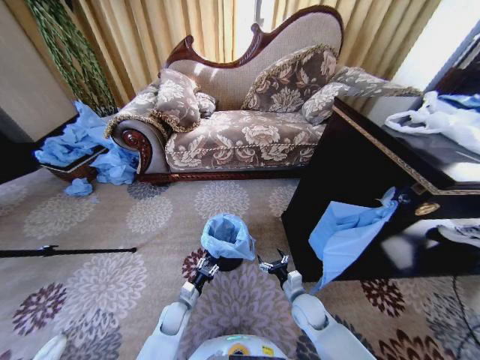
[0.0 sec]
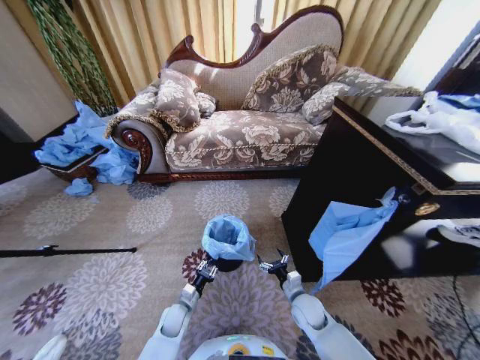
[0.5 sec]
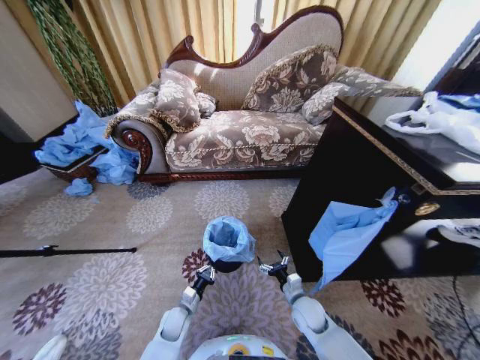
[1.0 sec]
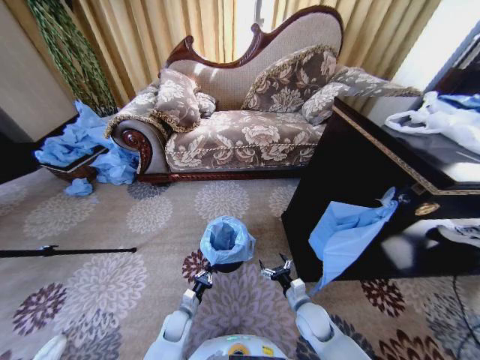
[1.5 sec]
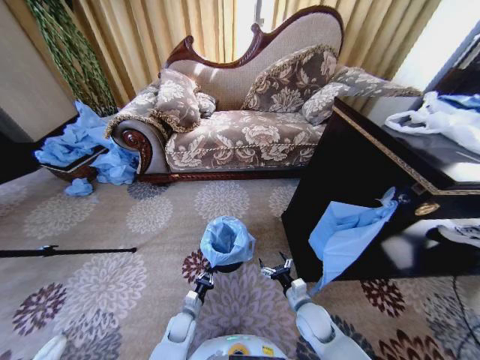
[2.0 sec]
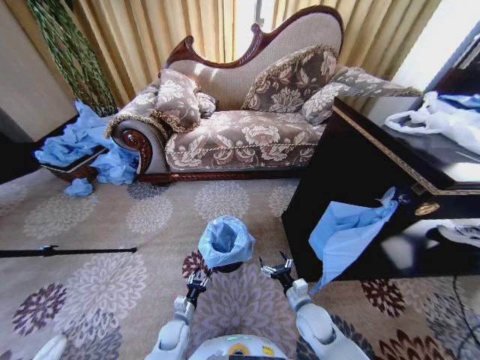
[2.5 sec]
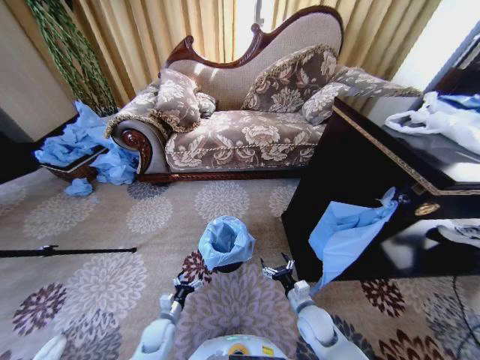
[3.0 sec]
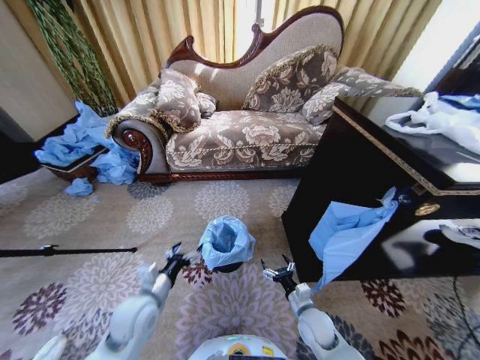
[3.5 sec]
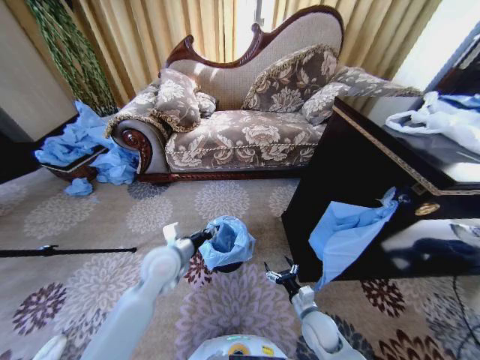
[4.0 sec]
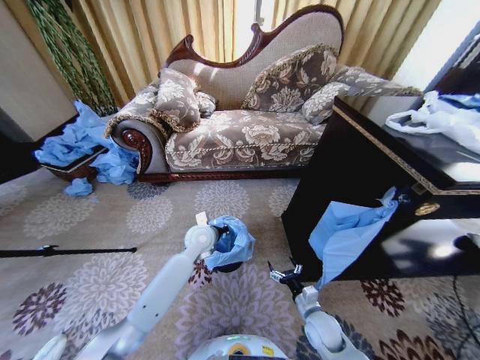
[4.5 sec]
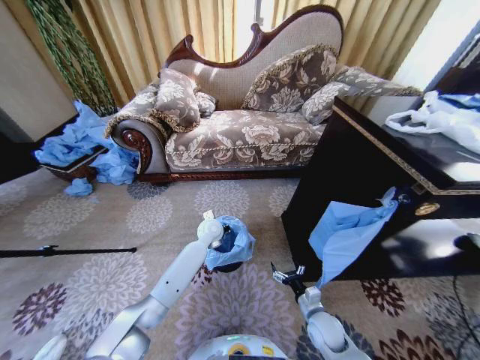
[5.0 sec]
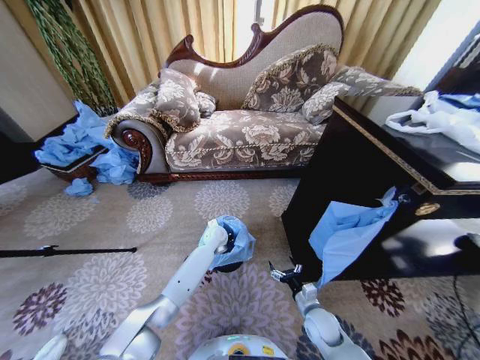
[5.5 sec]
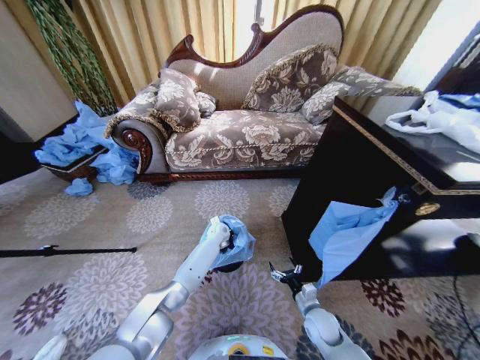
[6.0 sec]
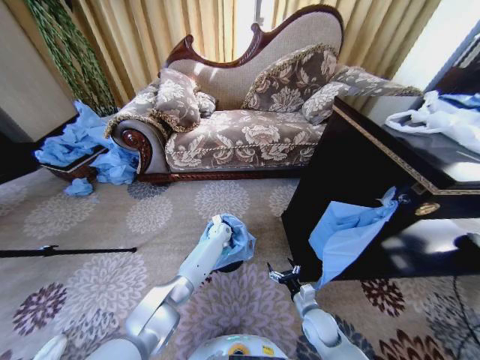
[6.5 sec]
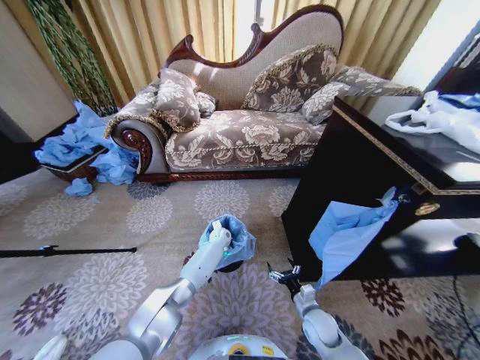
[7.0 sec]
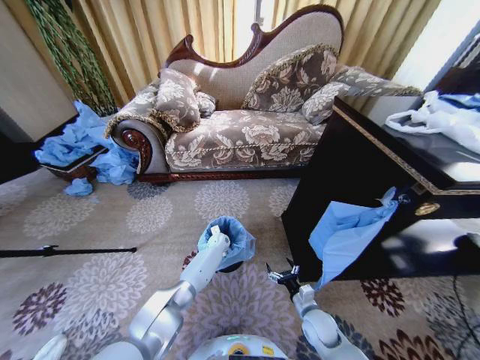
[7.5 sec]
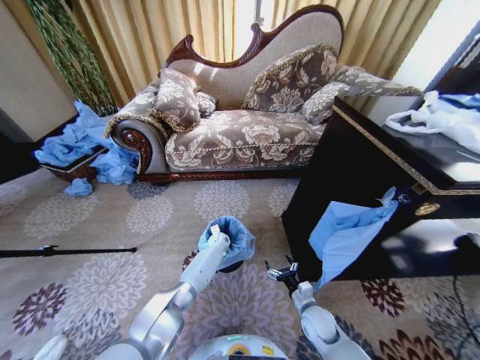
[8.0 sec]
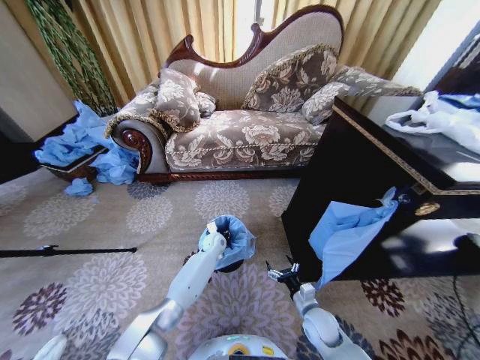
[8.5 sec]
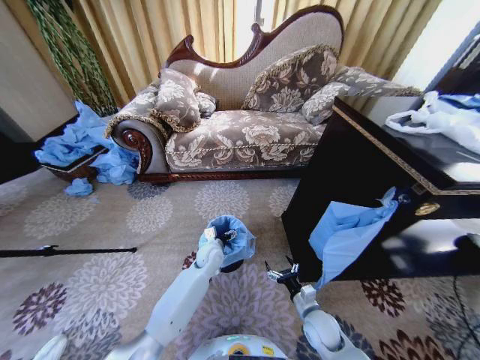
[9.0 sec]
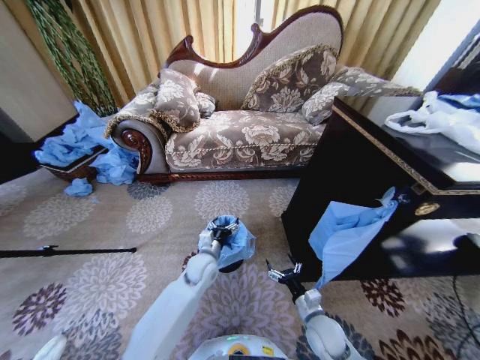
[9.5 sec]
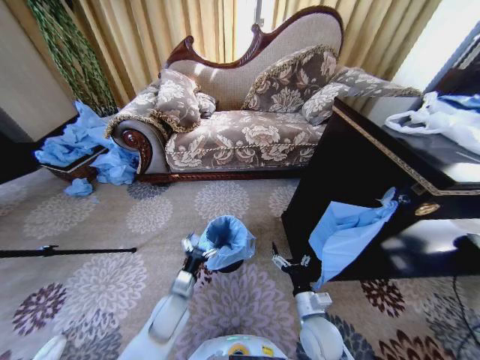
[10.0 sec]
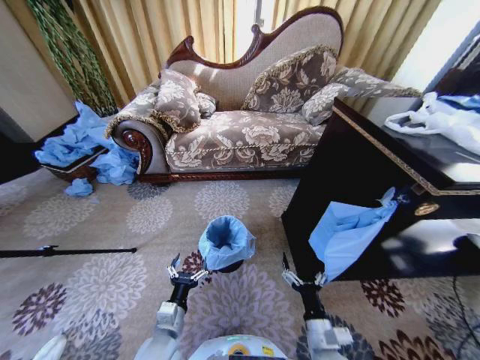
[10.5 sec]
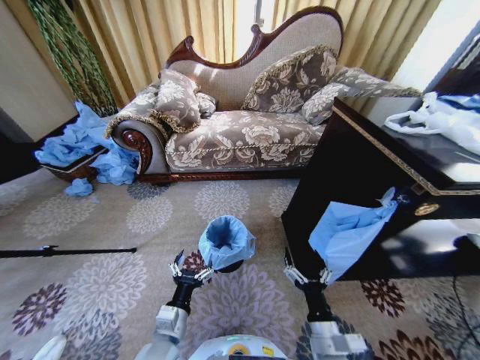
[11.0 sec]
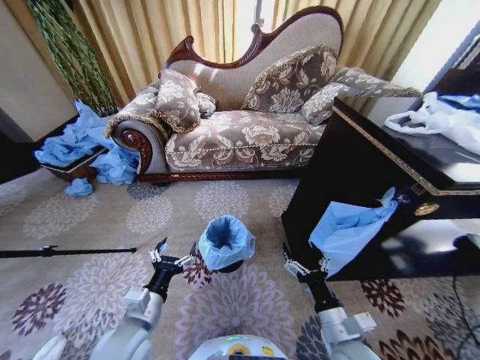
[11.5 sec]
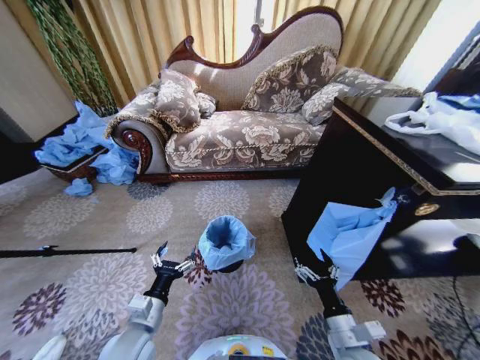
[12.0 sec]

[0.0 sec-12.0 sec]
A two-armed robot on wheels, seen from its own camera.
Task of the whole recording: Place a garbage bag over the trash bin.
0.0 sec to 2.0 sec: The left gripper travels downward by some 5 cm, and closes its fingers.
2.0 sec to 4.0 sec: The left gripper goes roughly 35 cm upward, and opens up.
4.0 sec to 6.0 sec: The left gripper heads forward, downward and to the right, covering roughly 30 cm, and closes up.
6.0 sec to 8.0 sec: The left gripper shifts roughly 5 cm downward.
8.0 sec to 10.0 sec: The left gripper travels backward by approximately 30 cm, and opens up. Meanwhile the right gripper shifts some 5 cm upward.
10.0 sec to 12.0 sec: The right gripper travels backward, upward and to the right by about 10 cm. Meanwhile the left gripper moves upward and backward, roughly 10 cm.
